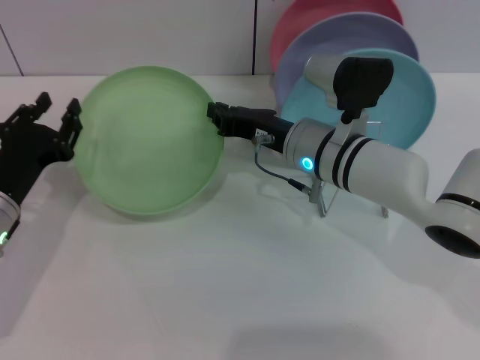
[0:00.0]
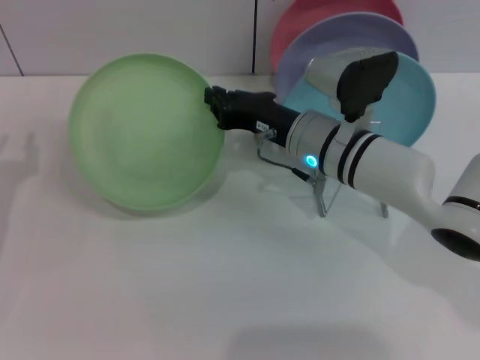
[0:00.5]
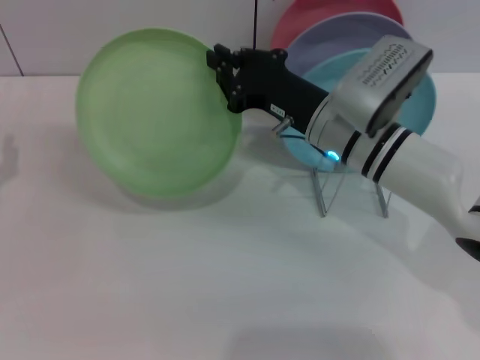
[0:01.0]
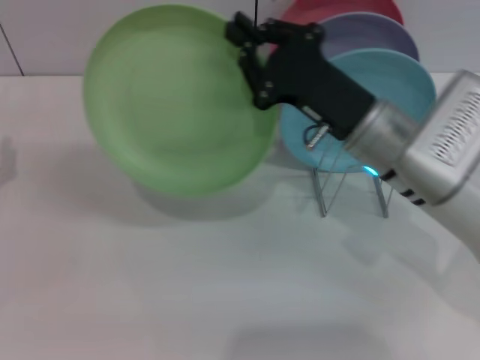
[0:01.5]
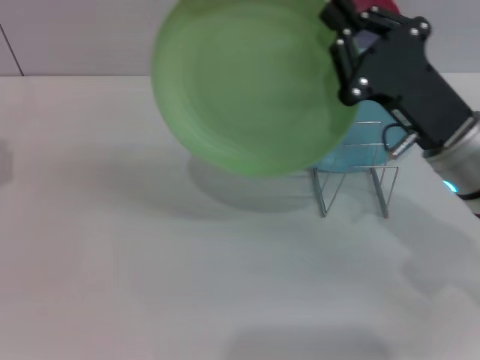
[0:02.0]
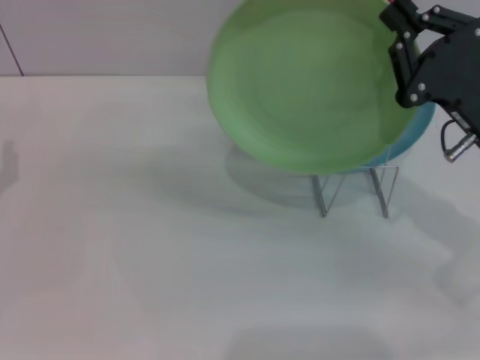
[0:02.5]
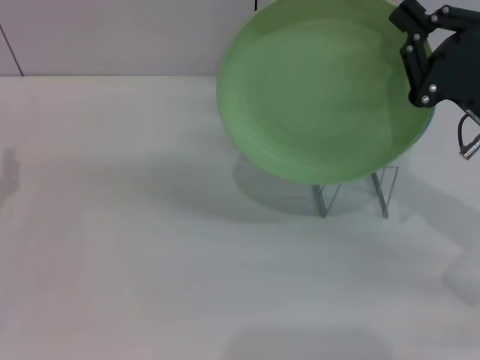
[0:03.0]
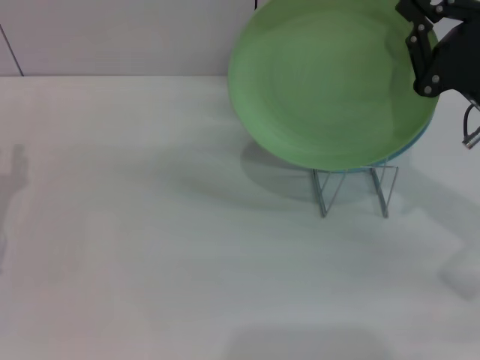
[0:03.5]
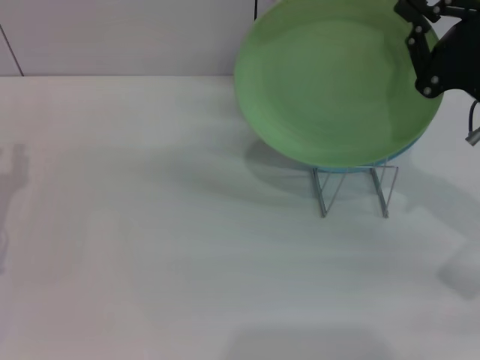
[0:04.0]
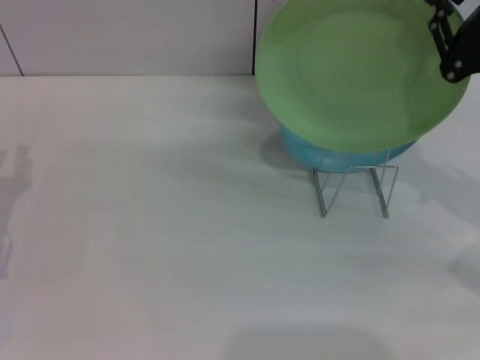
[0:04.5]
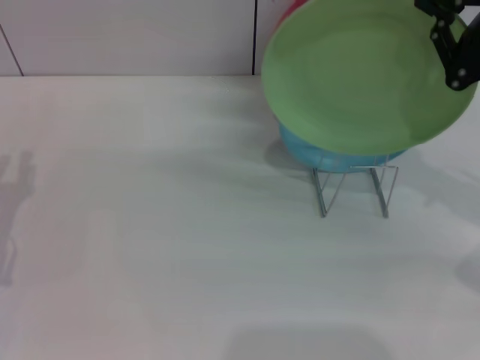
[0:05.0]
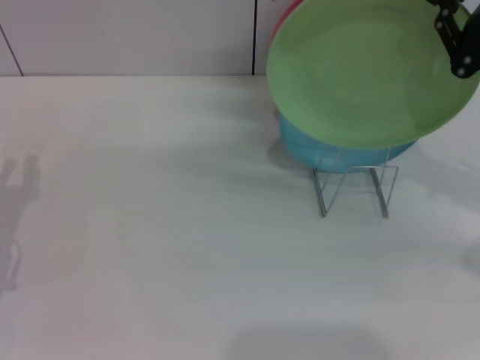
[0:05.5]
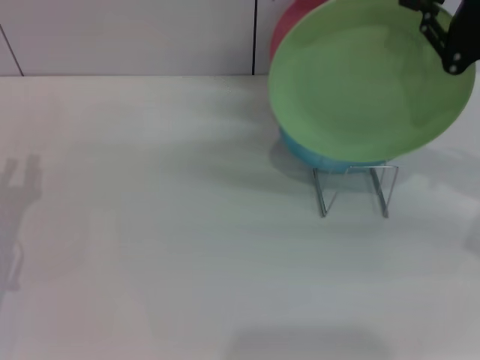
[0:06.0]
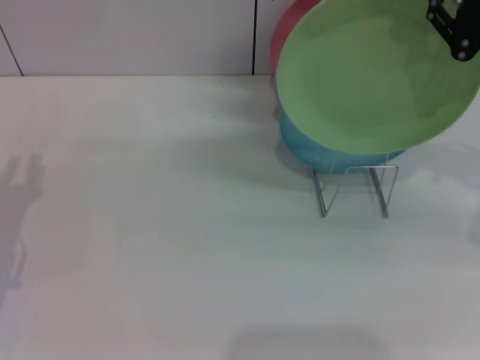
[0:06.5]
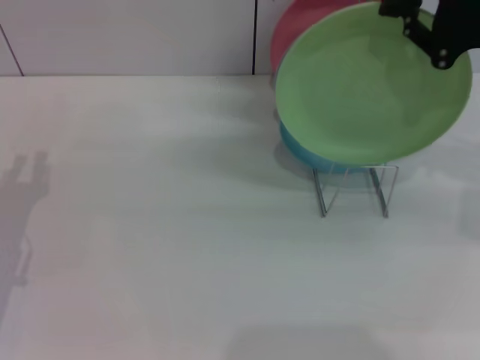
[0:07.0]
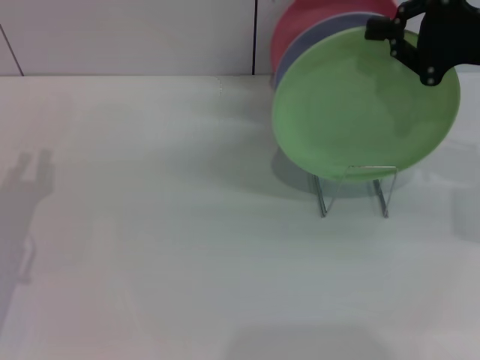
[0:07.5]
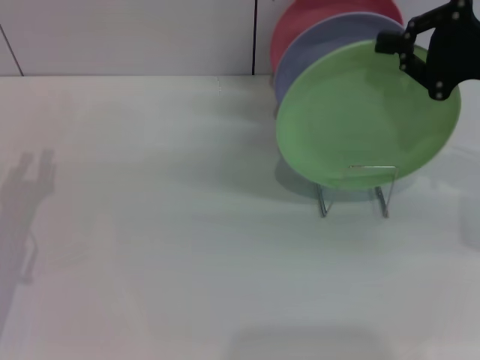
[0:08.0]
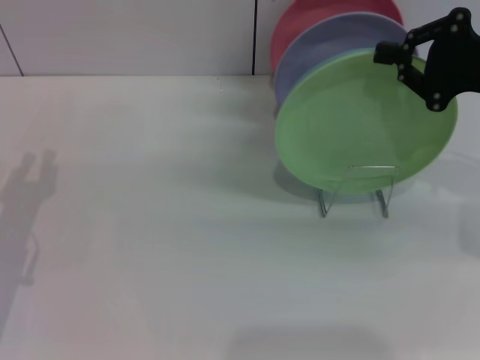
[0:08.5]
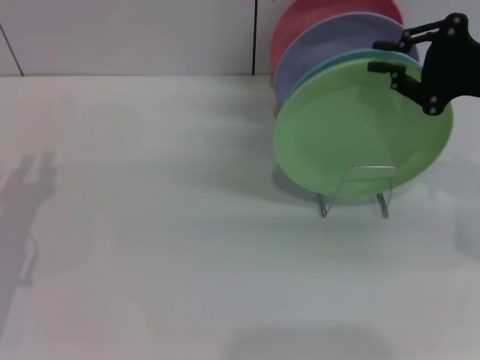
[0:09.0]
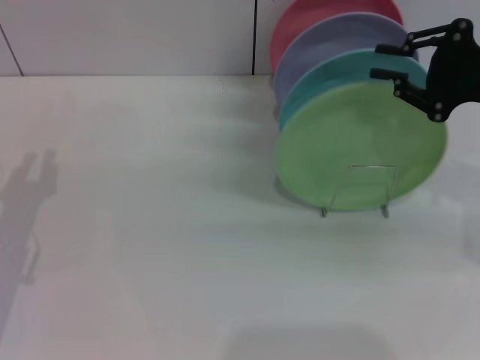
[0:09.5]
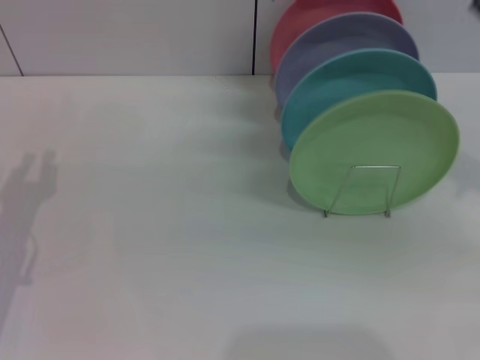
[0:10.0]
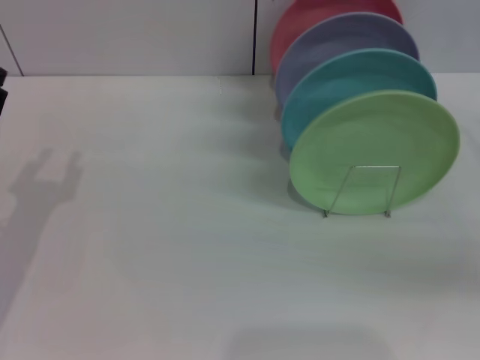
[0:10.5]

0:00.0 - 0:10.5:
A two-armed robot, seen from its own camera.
Task of the whole recording: Grip the plate with one hand, pass it to the other, then set it on the shelf.
Step, 0:00.5 - 0:09.5: Place the plate on the shelf with the right gripper.
0:00.0 - 0:02.0: The right gripper is displaced to the right and backward by roughly 15 cm. Meanwhile the left gripper heads to the left, covering roughly 5 cm.
0:02.0 - 0:04.0: The right gripper is displaced to the right by roughly 5 cm.
0:04.0 - 0:06.5: The right gripper travels upward by approximately 5 cm.
0:06.5 - 0:08.5: The grippers make only small movements.
0:08.5 - 0:10.5: The right gripper goes roughly 10 cm to the right and backward.
